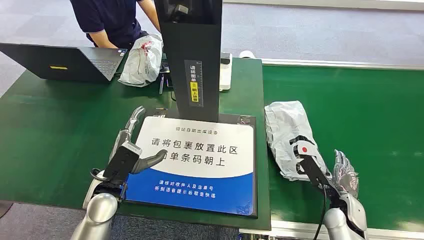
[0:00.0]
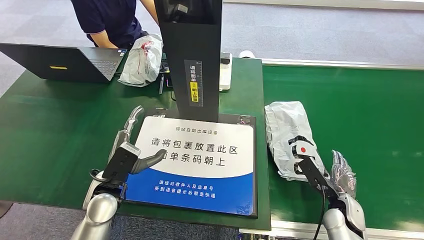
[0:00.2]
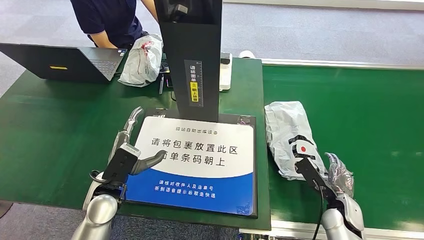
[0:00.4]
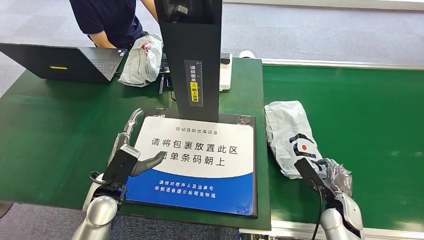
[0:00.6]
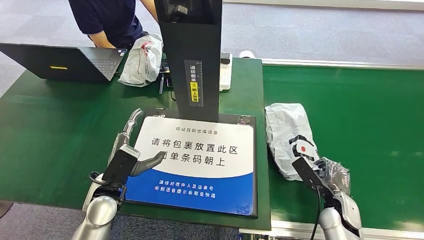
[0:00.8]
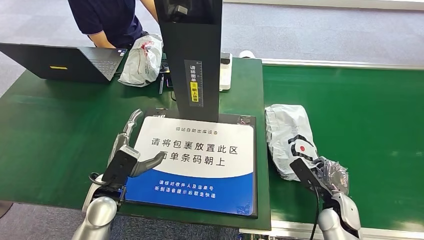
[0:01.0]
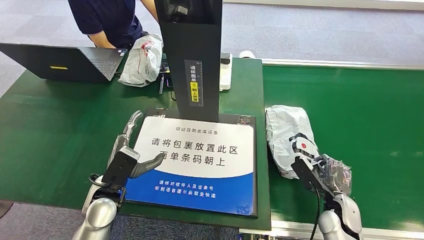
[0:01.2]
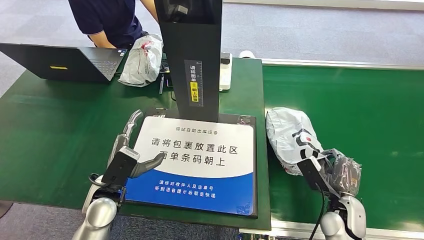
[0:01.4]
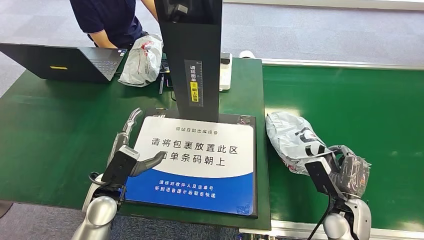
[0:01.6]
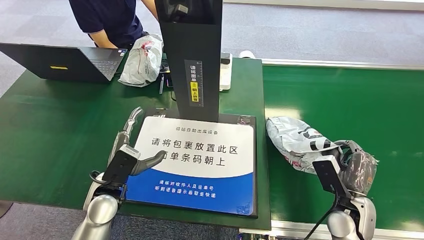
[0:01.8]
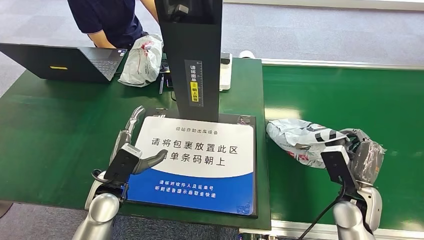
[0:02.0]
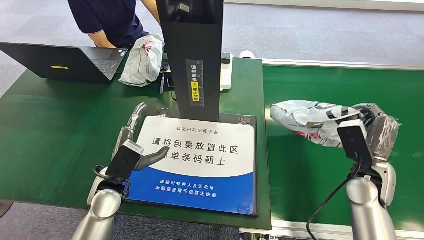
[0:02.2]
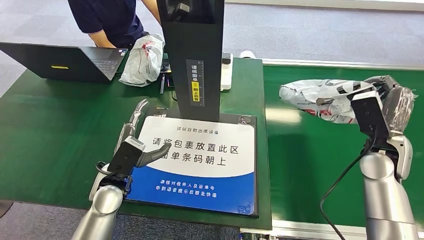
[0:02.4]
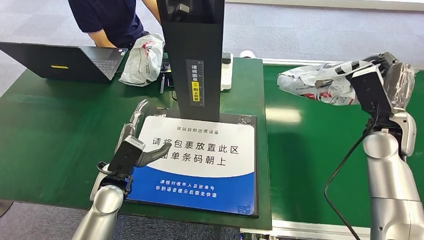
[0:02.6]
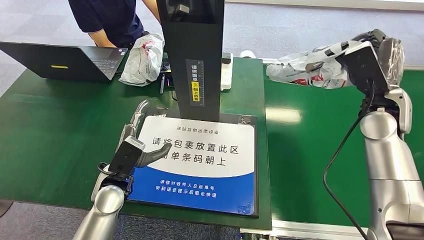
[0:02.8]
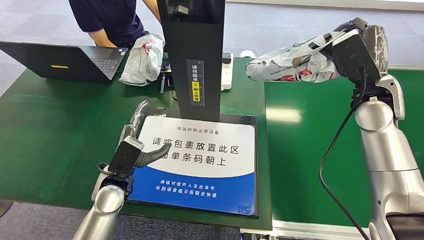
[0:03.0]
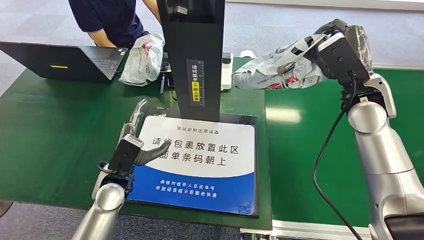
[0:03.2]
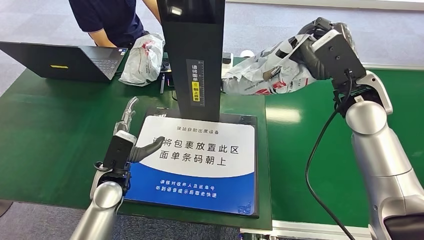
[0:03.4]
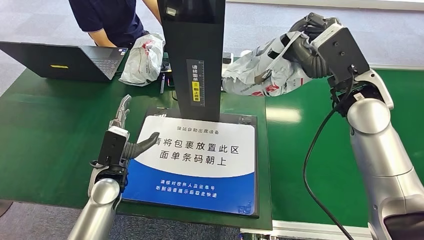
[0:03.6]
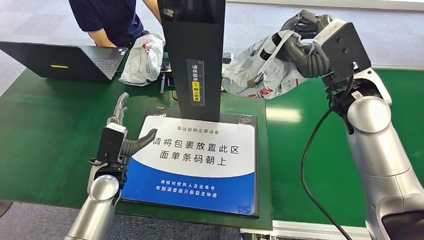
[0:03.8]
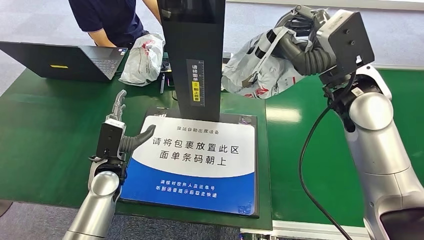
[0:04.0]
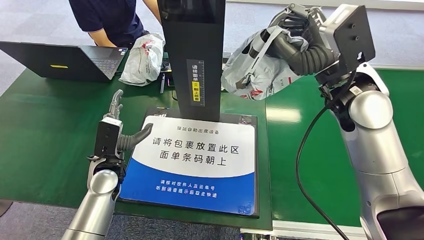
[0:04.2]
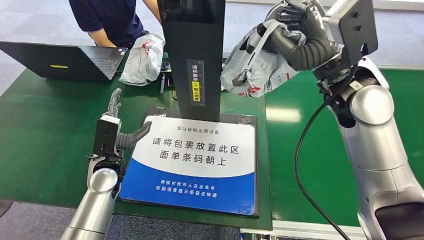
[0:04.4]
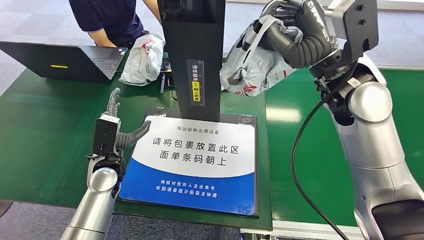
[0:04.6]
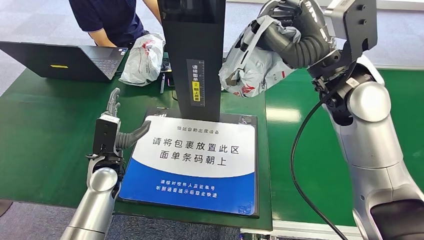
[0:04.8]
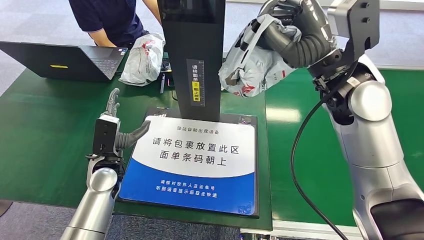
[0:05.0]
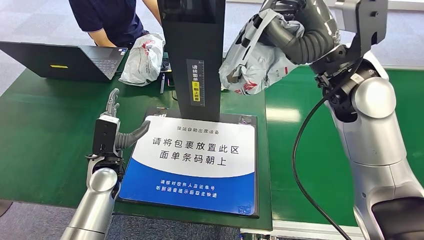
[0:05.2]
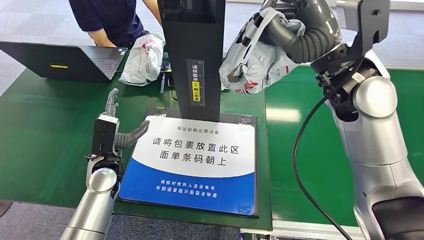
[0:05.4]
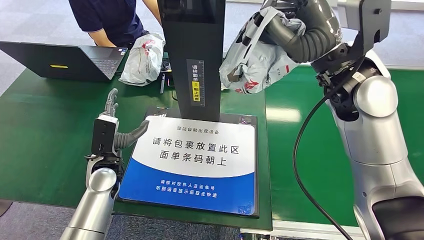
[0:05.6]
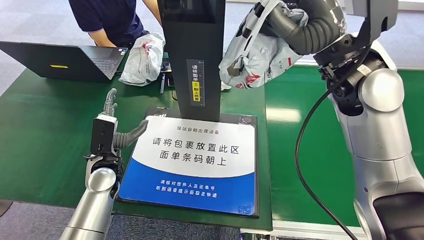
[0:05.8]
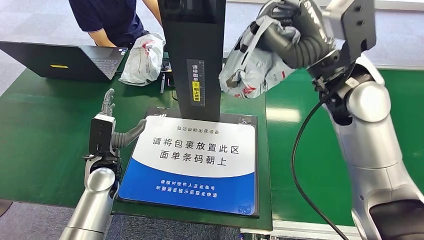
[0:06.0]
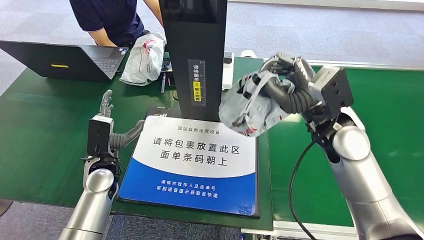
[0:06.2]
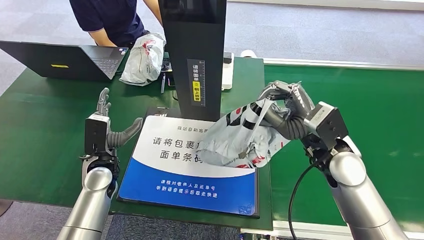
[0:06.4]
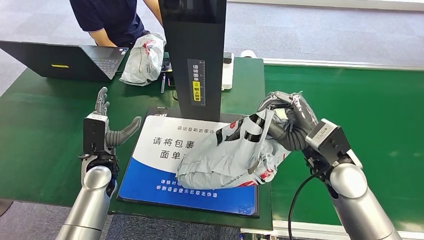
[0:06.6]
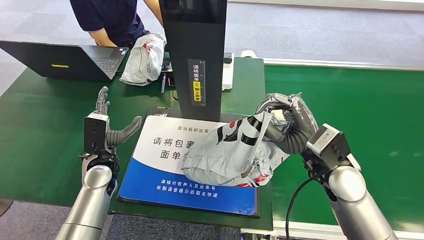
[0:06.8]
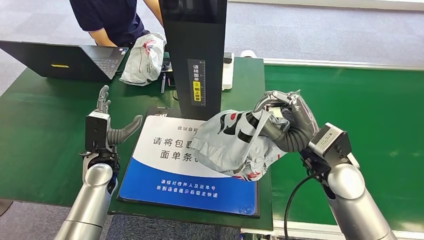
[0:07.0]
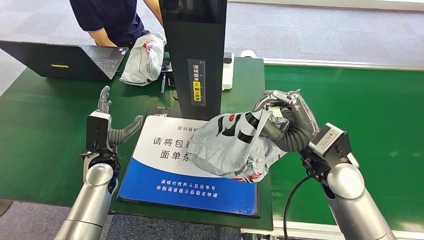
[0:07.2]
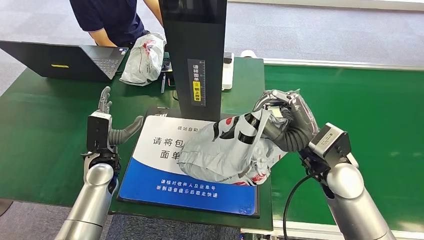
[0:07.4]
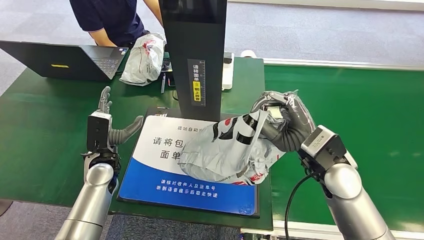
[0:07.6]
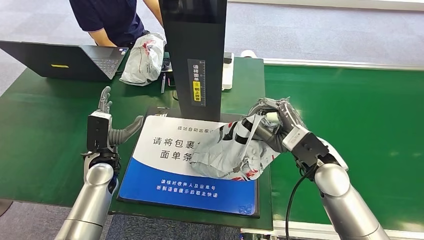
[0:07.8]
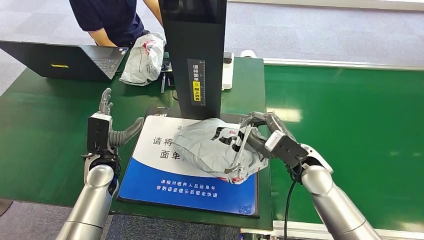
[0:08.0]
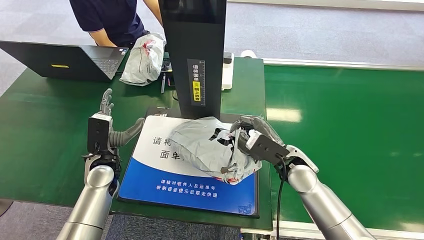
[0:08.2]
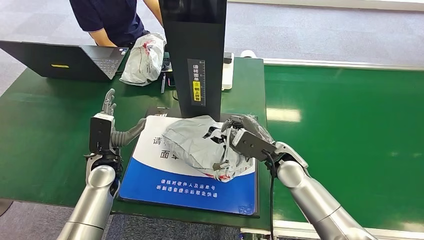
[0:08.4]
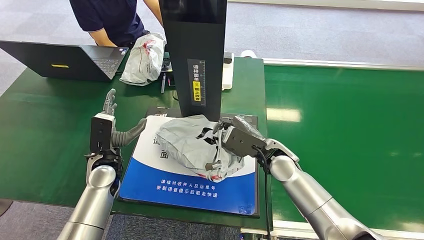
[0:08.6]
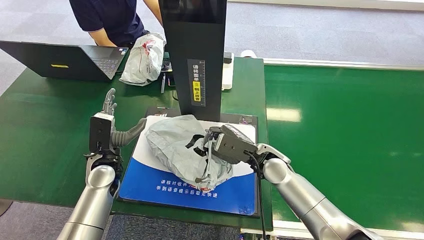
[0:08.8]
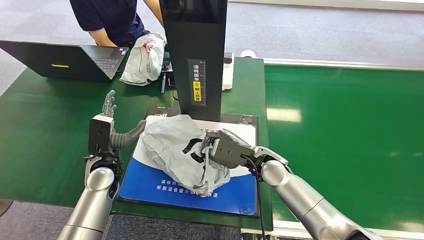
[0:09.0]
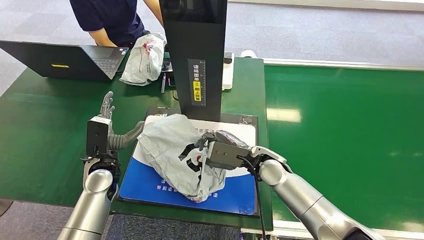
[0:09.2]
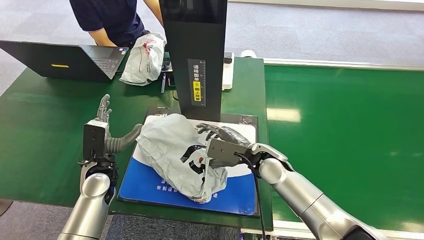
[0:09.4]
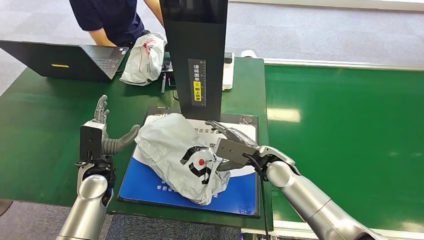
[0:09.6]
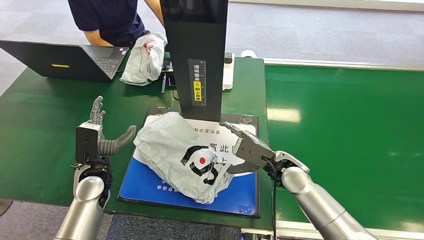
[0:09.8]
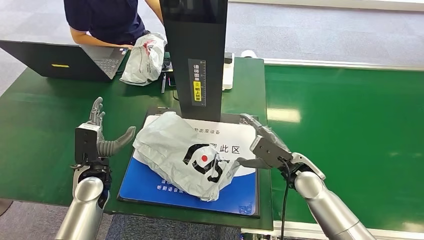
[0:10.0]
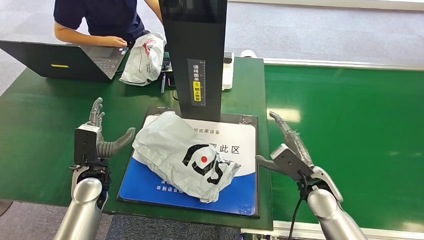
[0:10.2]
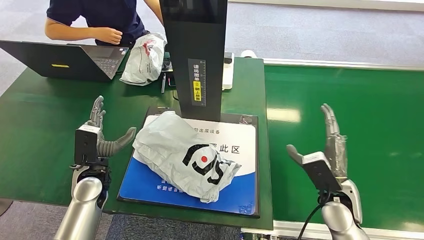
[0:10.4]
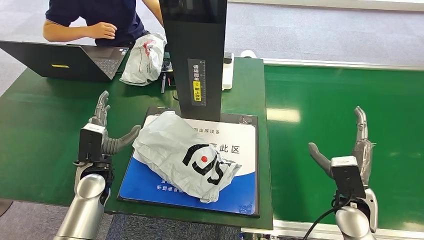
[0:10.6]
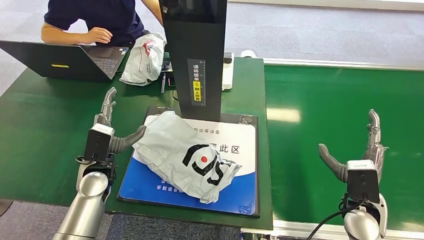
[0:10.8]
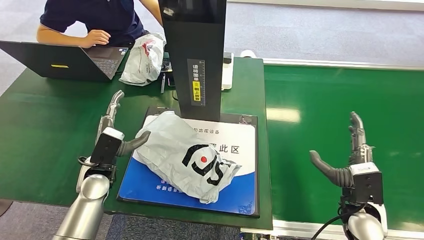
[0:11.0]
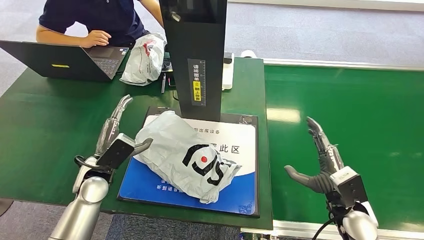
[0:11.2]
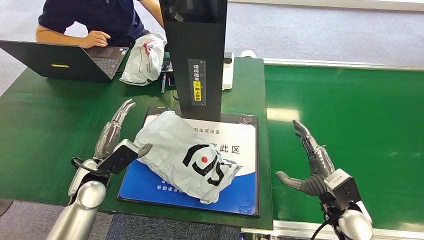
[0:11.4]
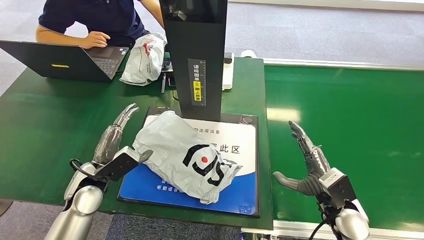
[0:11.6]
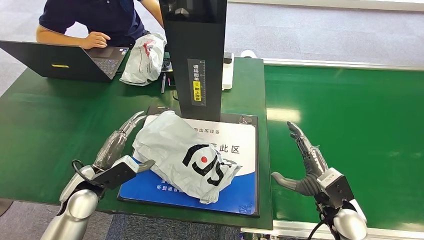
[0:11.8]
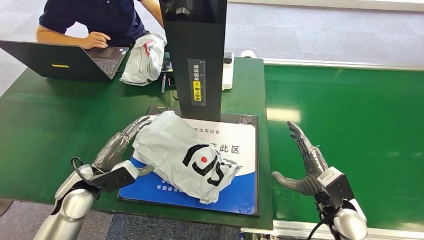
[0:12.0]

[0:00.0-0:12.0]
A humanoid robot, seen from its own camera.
Step, 0:00.0 to 0:03.0: Pick up the package from the conveyor belt.
Step, 0:03.2 to 0:10.4: Place the package onto the inbound machine.
0:04.4 to 0:06.0: The hands move only a little.
0:07.6 to 0:09.0: The right hand goes roughly 15 cm downward, to the left and forward.
0:09.0 to 0:10.4: The right hand moves to the right and backward, roughly 20 cm.

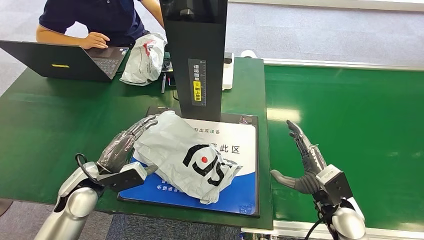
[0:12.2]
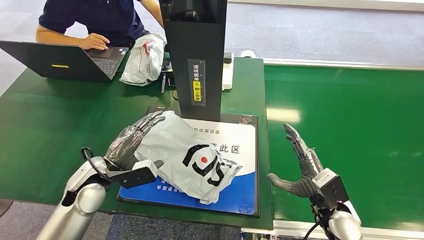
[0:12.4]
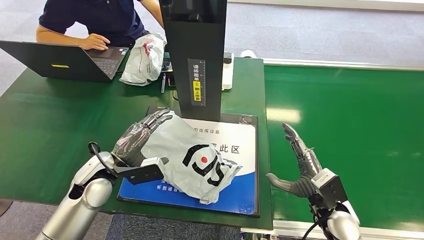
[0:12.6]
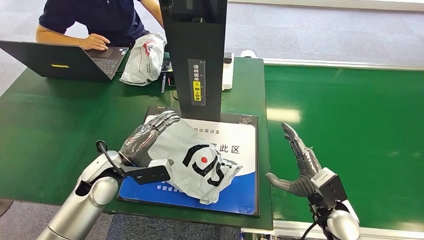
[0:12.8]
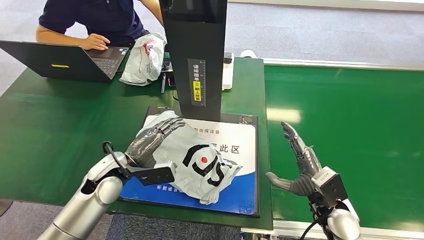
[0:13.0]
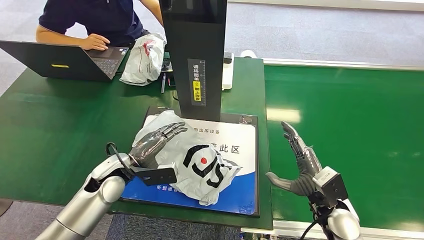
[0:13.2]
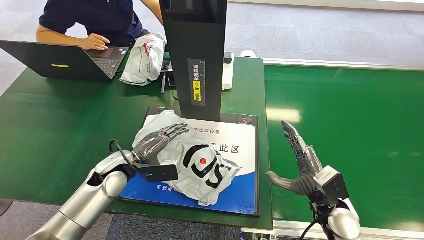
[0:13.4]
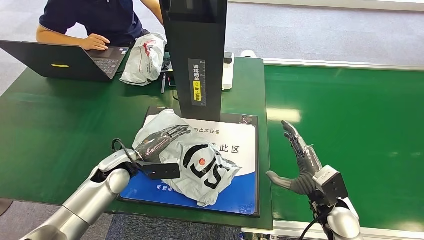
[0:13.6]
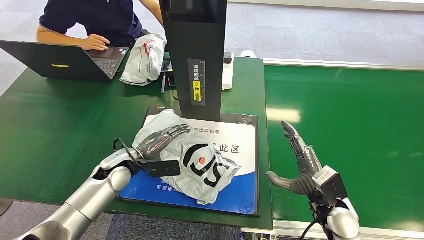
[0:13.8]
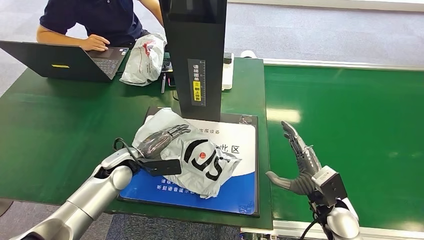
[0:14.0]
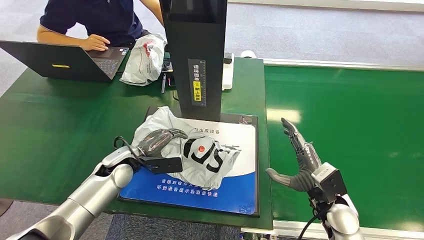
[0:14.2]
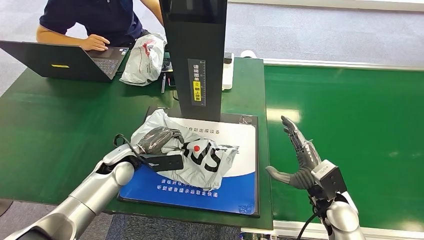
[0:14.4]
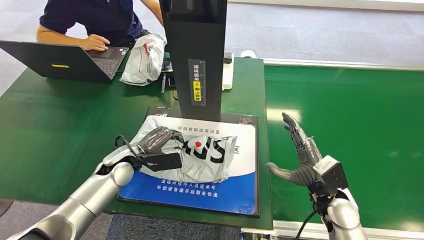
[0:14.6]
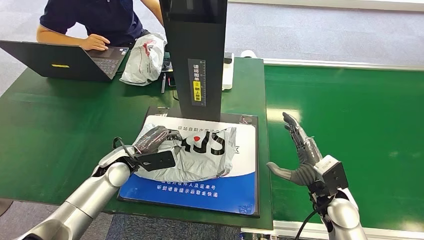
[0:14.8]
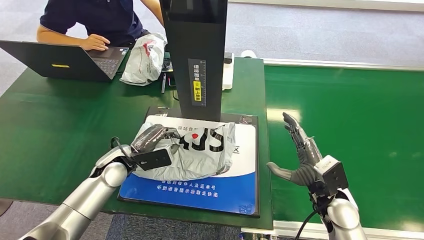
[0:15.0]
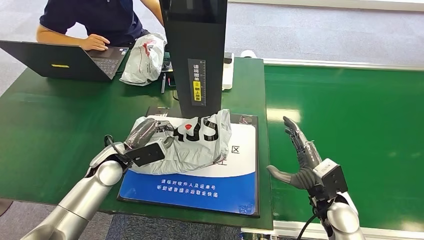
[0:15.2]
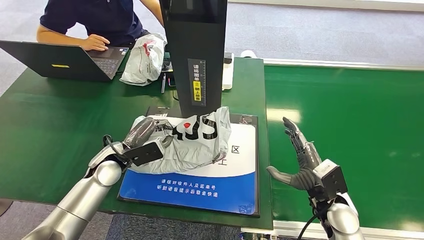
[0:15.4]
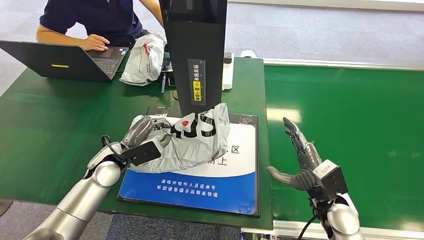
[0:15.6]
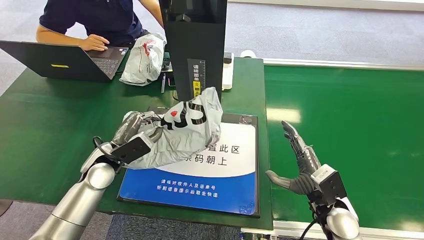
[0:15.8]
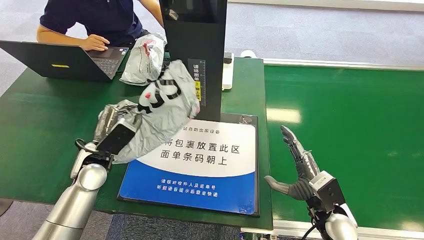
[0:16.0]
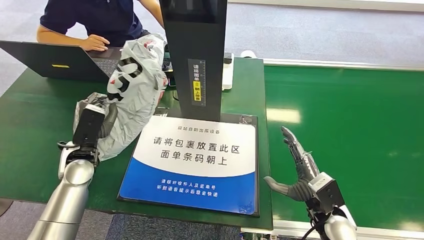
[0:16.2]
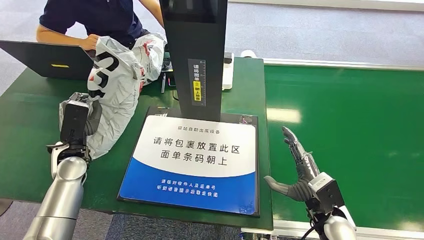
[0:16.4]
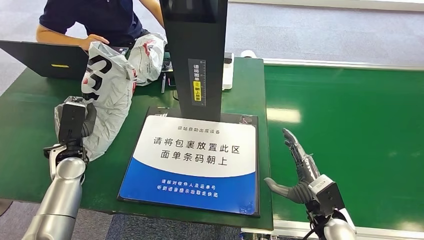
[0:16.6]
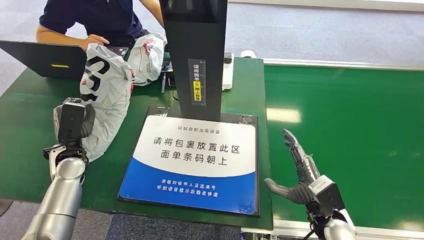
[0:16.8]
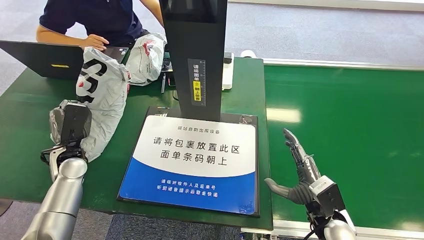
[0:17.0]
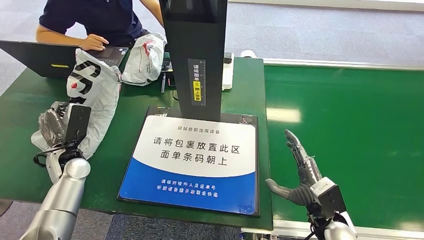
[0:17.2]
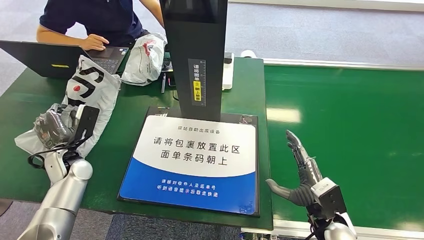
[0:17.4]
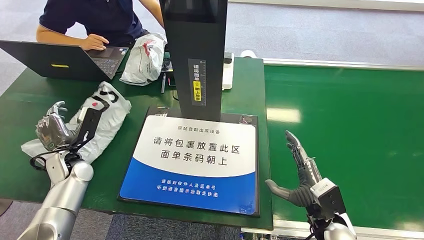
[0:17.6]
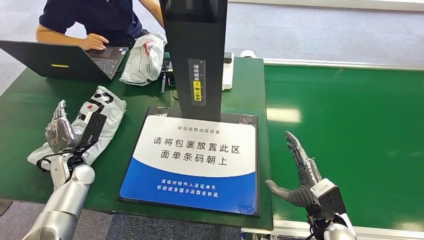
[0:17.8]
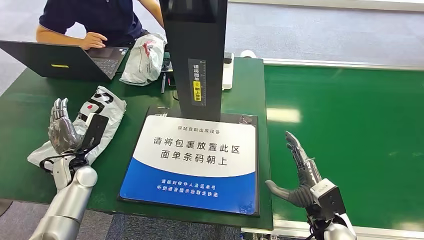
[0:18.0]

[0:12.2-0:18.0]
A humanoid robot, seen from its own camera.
Step, 0:12.2 to 0:16.0: Pick up the package from the inbound machine.
Step, 0:16.2 to 0:17.8: Place the package into the parcel locker.
0:12.2 to 0:13.6: The left hand is displaced forward by roughly 5 cm.
0:13.6 to 0:15.0: The hands stay close to where they were, moving slightly.
